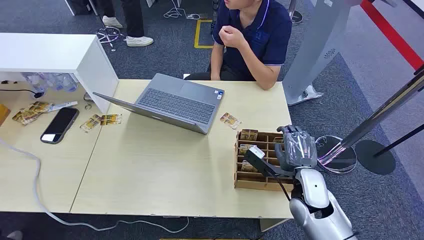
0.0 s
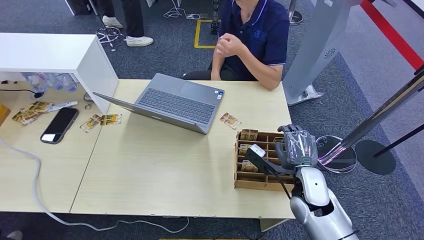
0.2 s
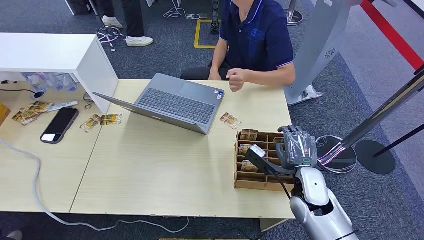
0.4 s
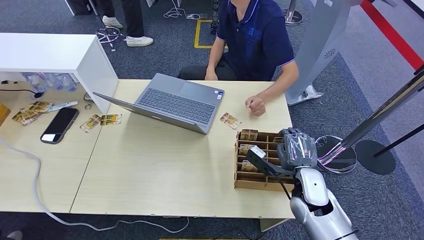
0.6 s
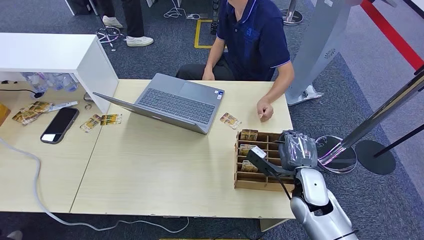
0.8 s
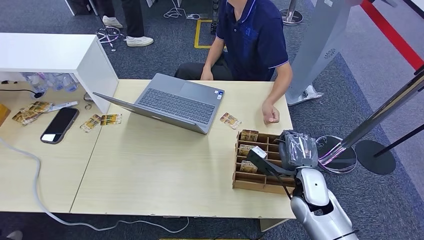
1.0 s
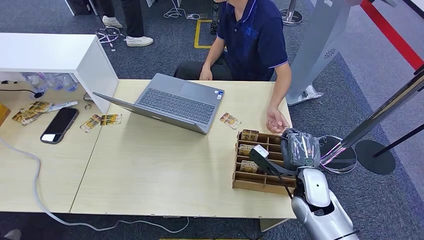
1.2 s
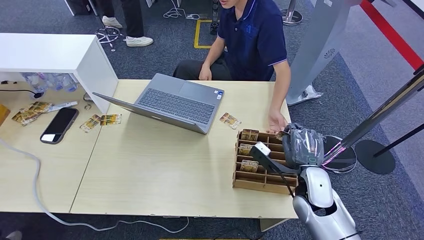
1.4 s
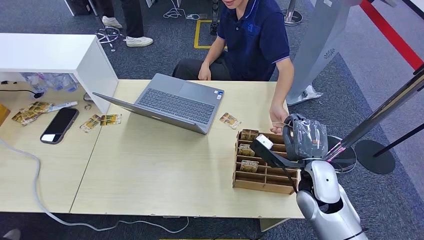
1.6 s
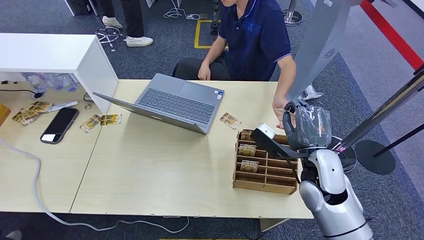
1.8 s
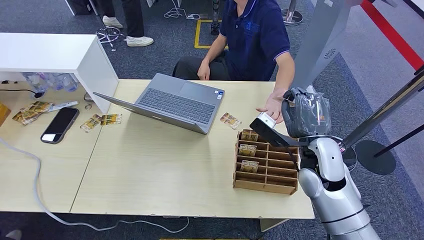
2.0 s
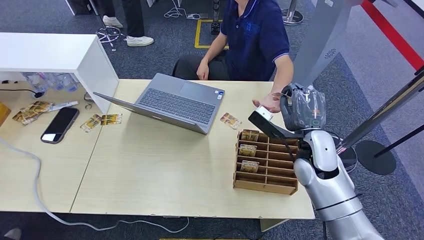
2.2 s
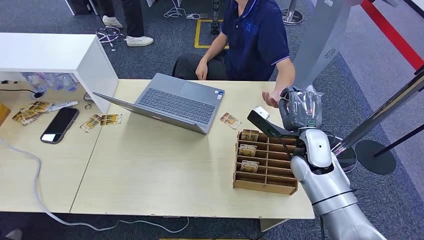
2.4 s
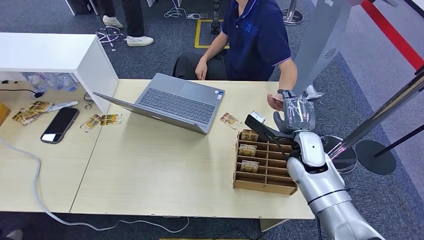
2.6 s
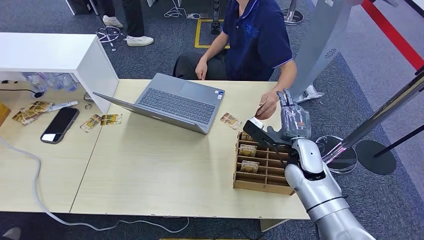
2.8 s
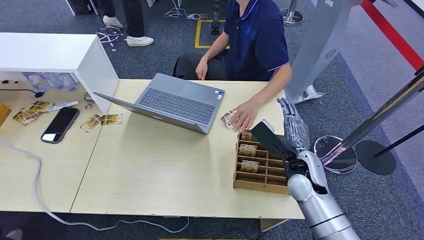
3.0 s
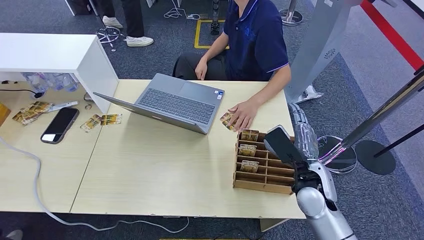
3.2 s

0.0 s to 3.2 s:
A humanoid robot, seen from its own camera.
Step, 0.0 to 1.6 s: Pick up the key card from the card box.
Step, 2.0 to 3.2 s: Hand the key card to the target.
1.6 to 3.2 s: The right hand reaches approximately 10 cm forward, then returns.
